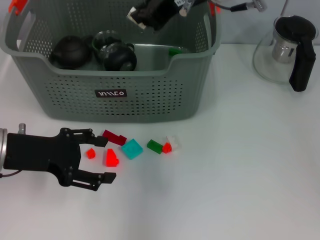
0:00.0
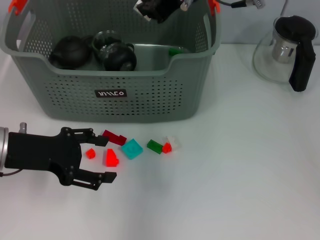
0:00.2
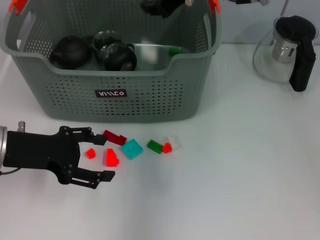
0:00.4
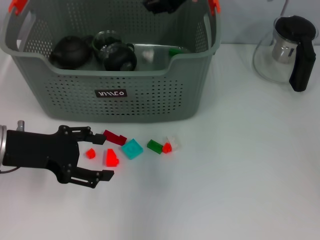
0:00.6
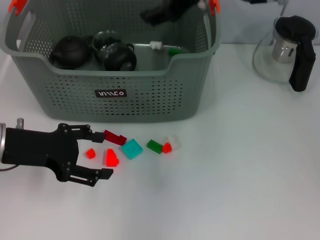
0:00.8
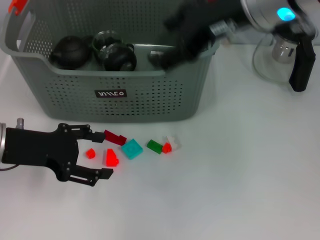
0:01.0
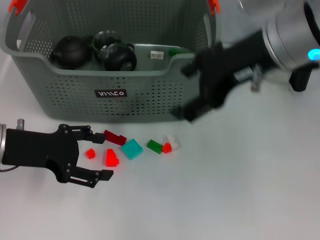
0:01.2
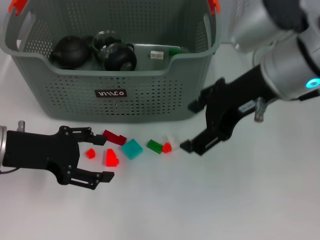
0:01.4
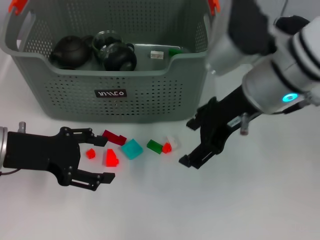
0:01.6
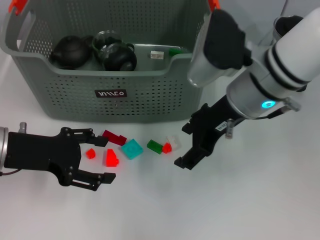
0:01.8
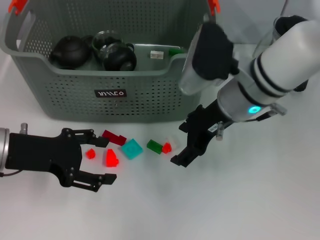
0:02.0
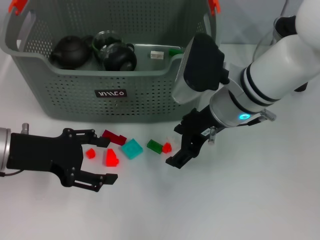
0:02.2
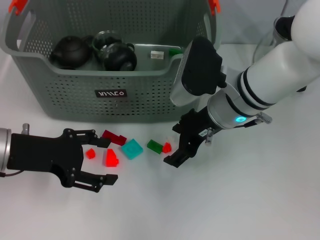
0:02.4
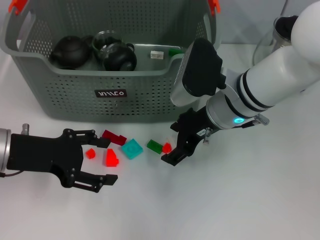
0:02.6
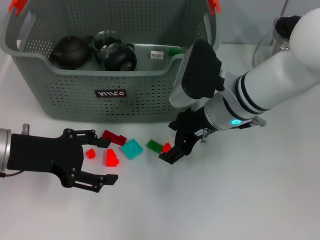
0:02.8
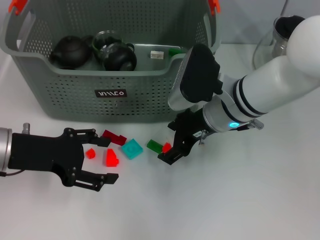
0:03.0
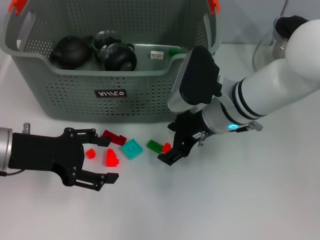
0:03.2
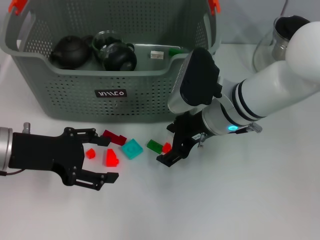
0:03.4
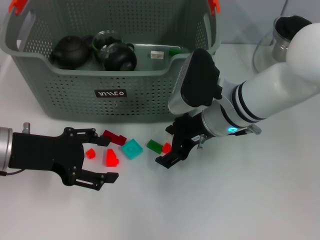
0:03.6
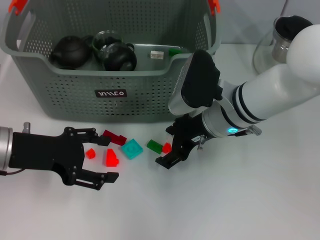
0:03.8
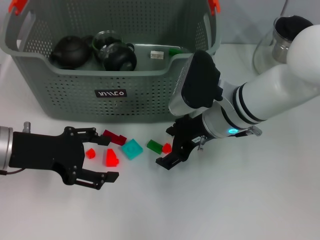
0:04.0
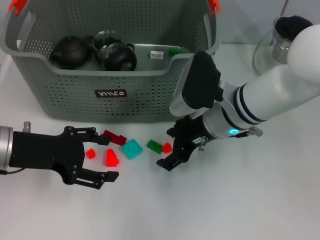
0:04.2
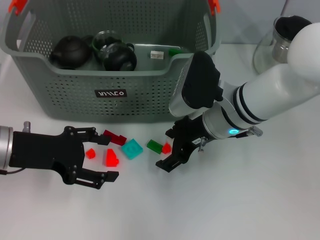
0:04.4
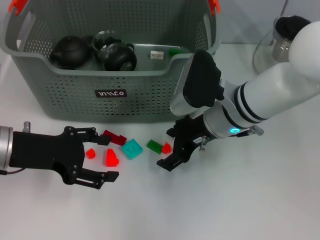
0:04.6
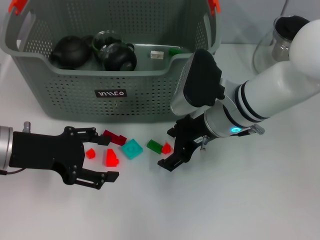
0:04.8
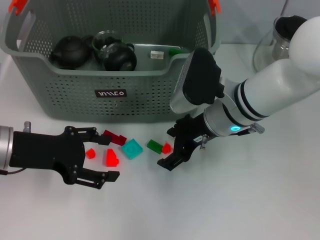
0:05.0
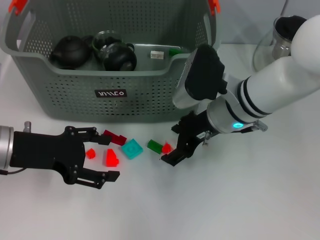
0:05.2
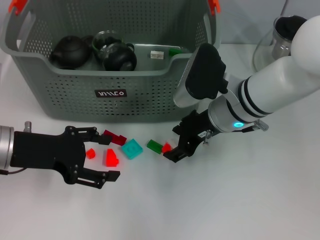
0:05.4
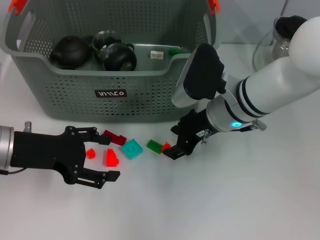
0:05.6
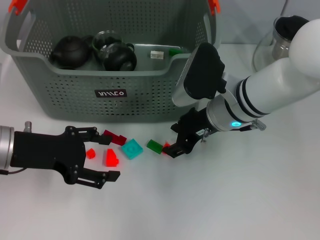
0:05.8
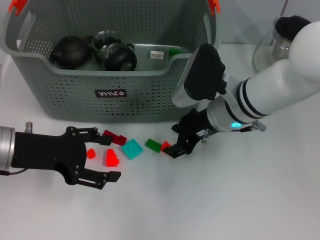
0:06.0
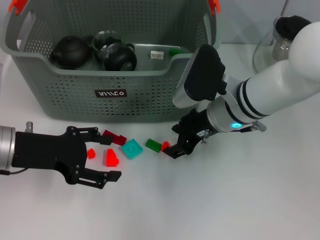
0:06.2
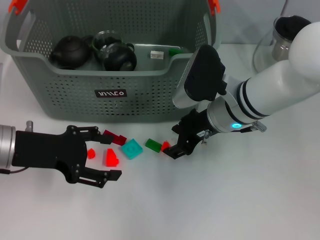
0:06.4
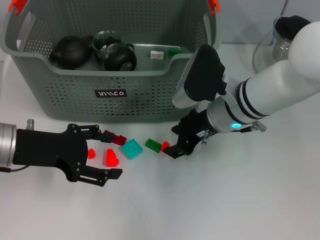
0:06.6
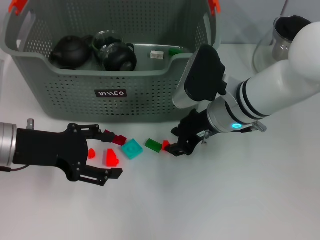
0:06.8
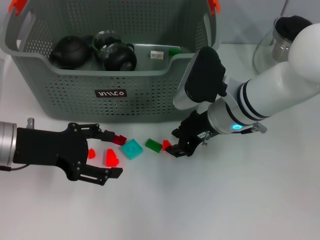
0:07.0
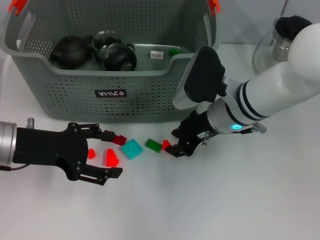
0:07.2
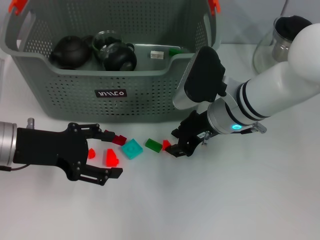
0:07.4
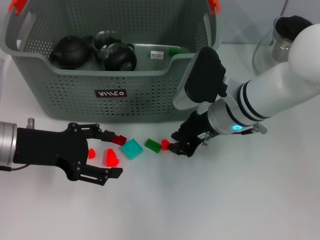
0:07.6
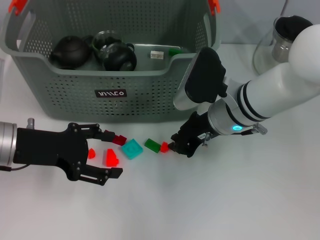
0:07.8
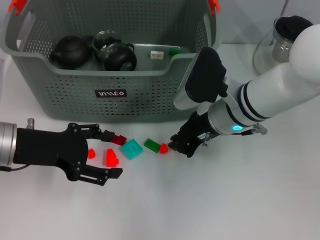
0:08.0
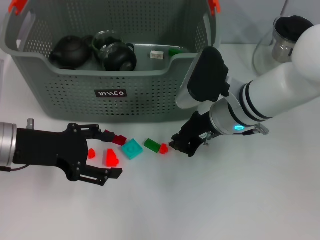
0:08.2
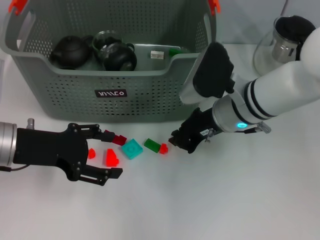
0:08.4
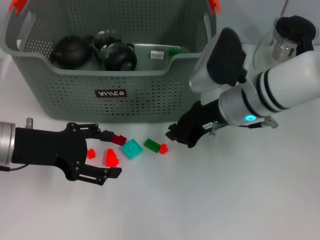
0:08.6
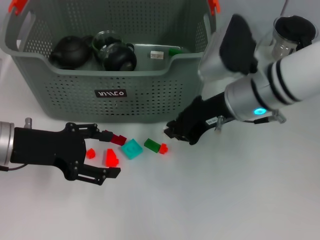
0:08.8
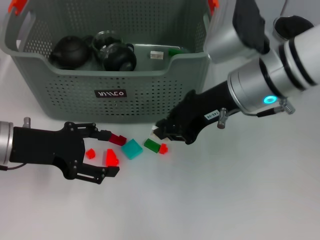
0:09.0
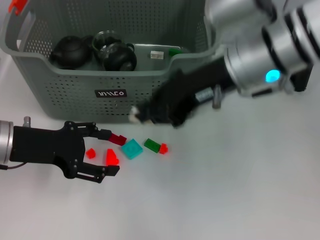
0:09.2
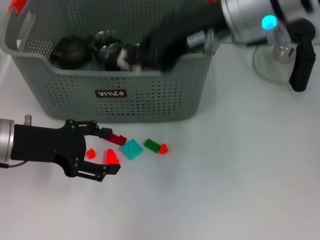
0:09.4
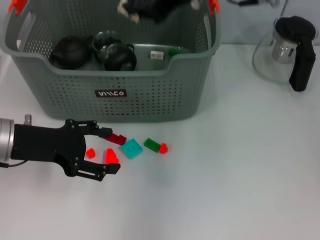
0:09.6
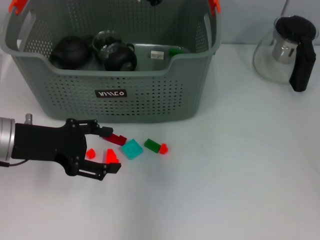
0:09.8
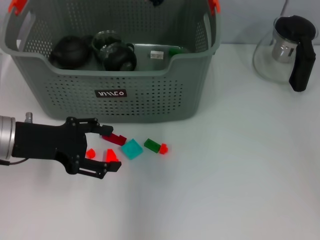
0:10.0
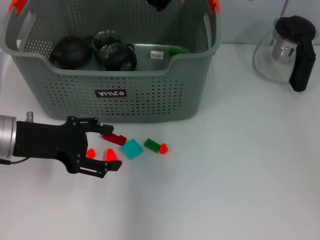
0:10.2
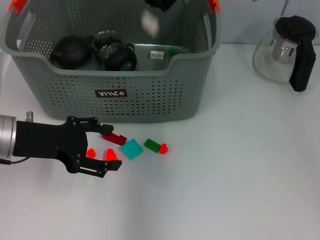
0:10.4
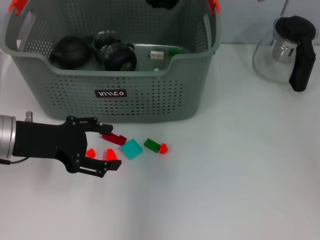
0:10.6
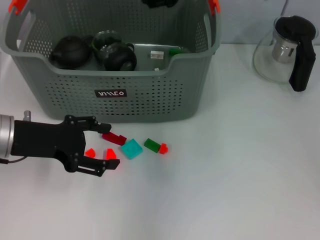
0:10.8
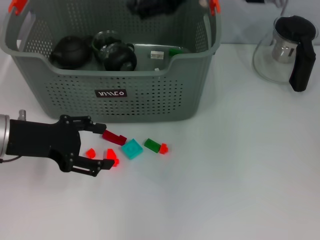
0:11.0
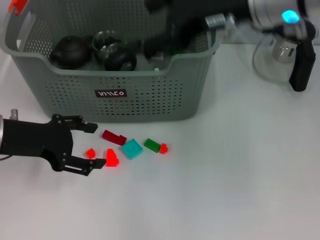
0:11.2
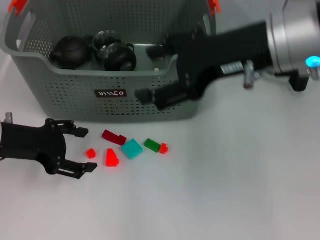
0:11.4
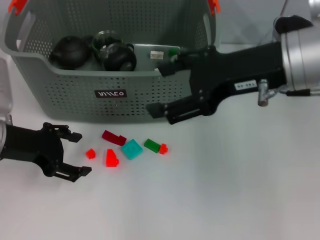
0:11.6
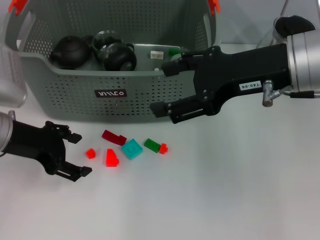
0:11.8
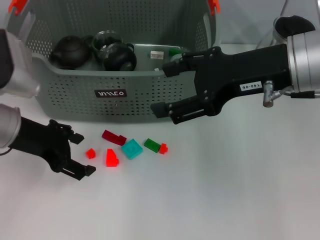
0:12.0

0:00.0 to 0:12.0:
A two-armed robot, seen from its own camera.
Task of the whole recording: pick up the teacup on the table and place it into the storage bin, pick up the block on the table and place it into the storage bin.
Step, 0:00.6 to 0:08.0: Grasp the white block with right gripper.
Step, 0:08.2 to 0:10.4: Place the white block in the storage box with right gripper.
0:00.0 to 0:01.6: The right gripper shifts roughly 10 cm backward and downward, and opens.
0:01.6 to 0:03.0: The right gripper travels downward by about 10 cm.
0:03.0 to 0:06.0: The two grippers keep their place.
0:06.0 to 0:07.6: Neither gripper changes place.
0:07.6 to 0:09.0: The right gripper travels upward by about 10 cm.
0:09.0 to 0:10.4: The right gripper goes approximately 15 cm forward and upward.
0:10.4 to 0:12.0: The right gripper shifts approximately 15 cm backward and to the right, and opens.

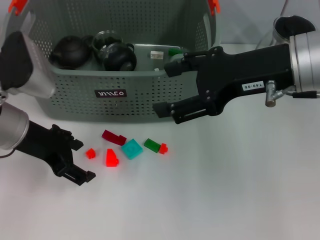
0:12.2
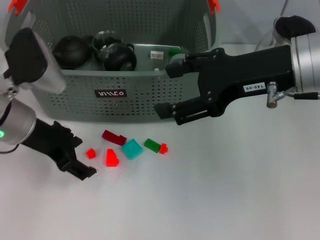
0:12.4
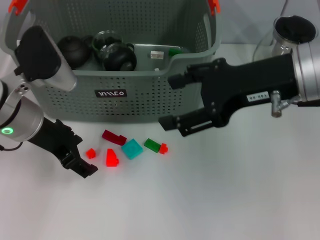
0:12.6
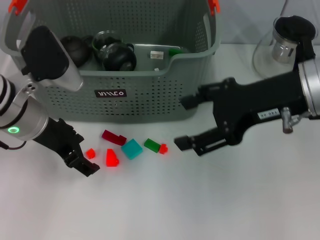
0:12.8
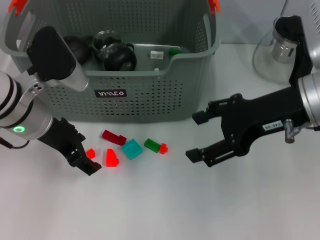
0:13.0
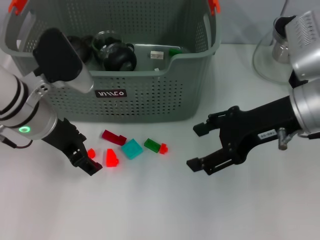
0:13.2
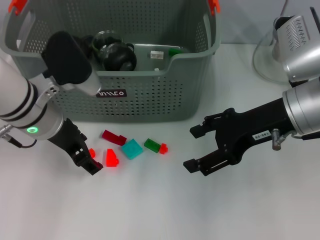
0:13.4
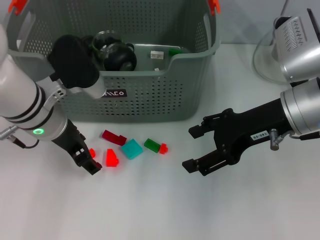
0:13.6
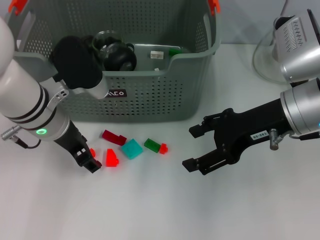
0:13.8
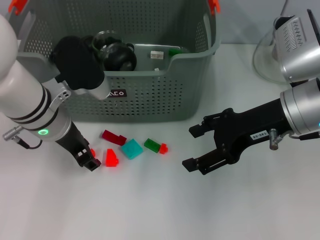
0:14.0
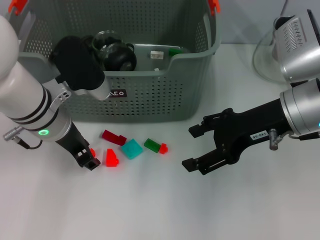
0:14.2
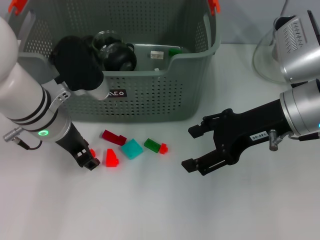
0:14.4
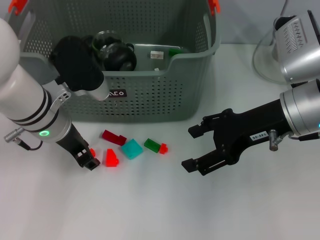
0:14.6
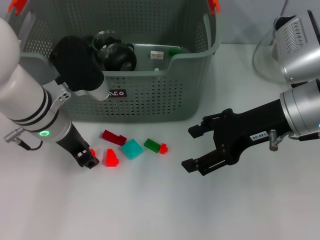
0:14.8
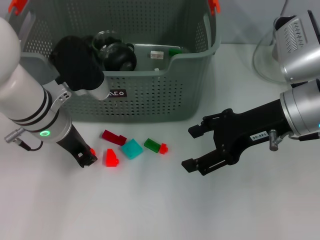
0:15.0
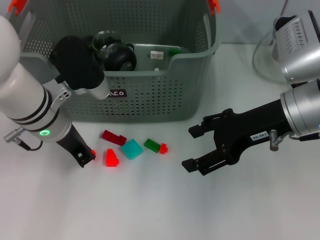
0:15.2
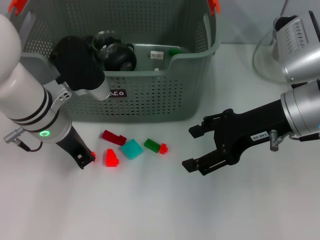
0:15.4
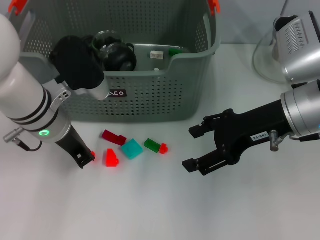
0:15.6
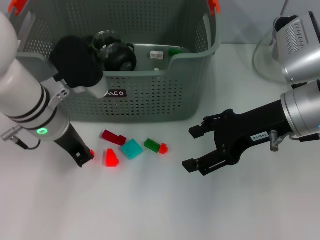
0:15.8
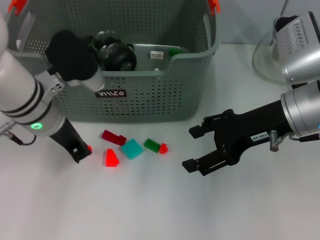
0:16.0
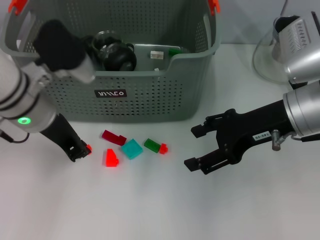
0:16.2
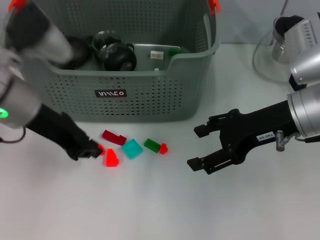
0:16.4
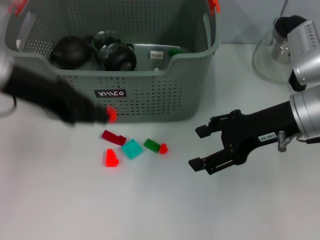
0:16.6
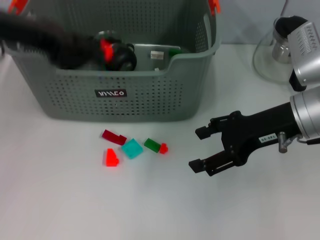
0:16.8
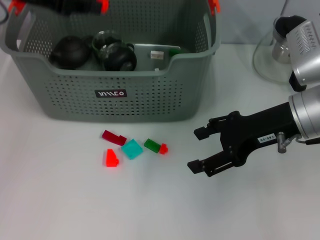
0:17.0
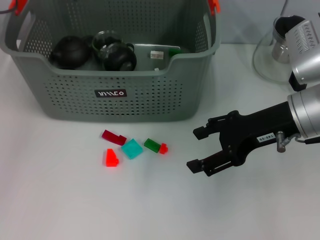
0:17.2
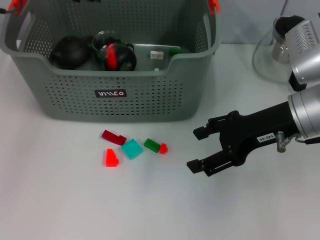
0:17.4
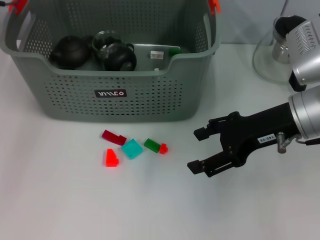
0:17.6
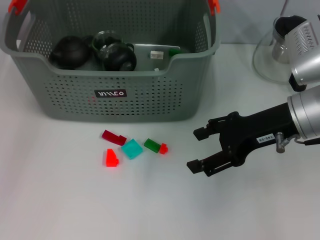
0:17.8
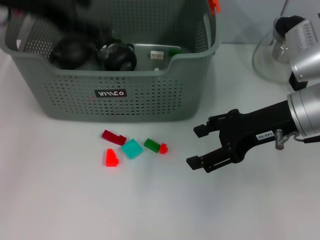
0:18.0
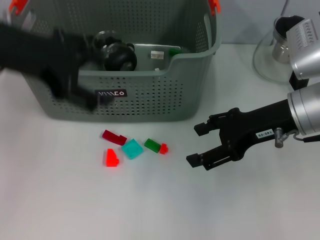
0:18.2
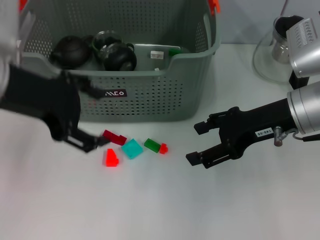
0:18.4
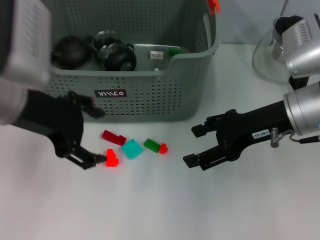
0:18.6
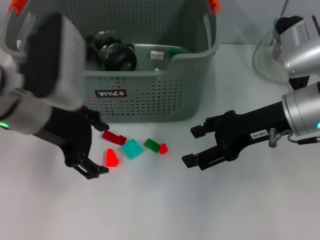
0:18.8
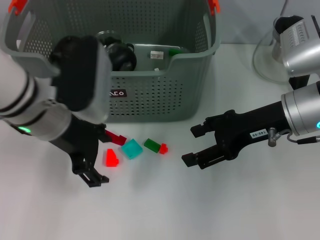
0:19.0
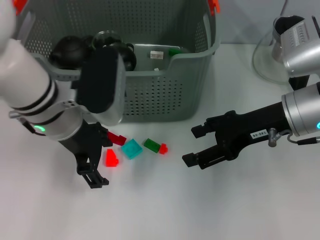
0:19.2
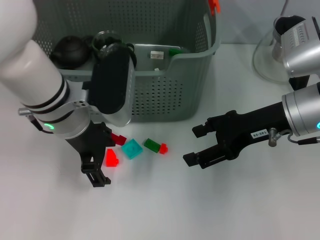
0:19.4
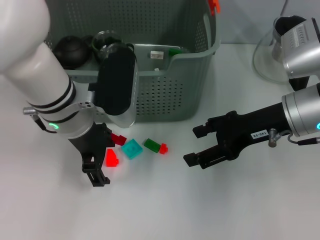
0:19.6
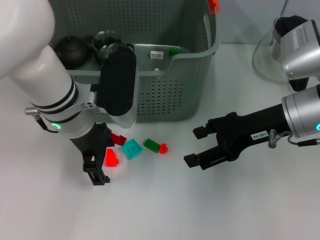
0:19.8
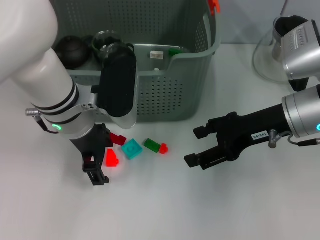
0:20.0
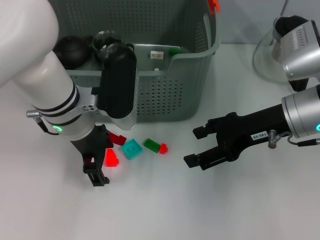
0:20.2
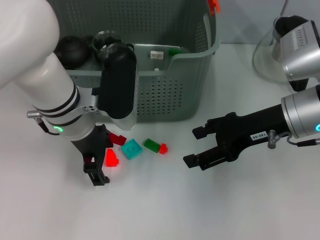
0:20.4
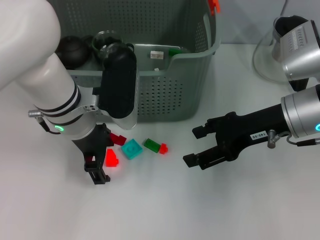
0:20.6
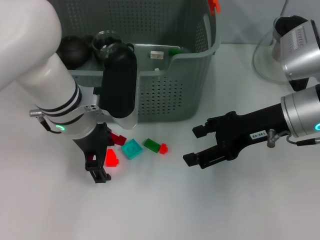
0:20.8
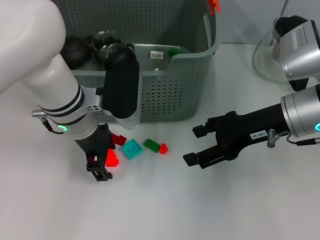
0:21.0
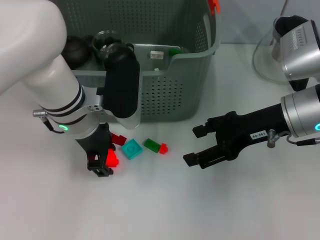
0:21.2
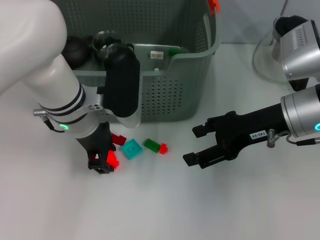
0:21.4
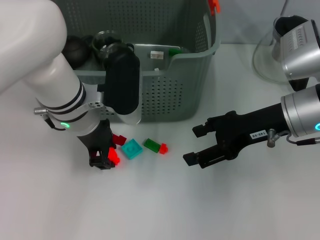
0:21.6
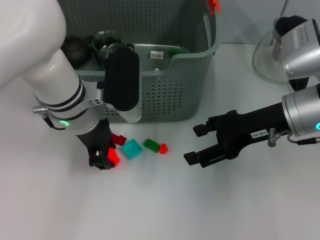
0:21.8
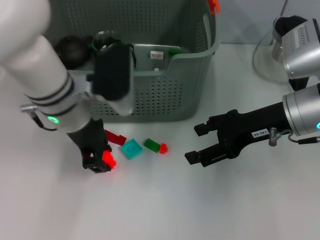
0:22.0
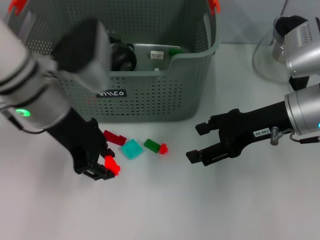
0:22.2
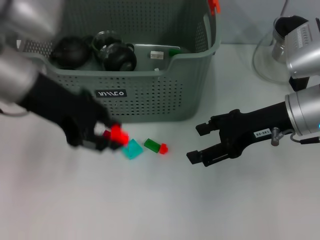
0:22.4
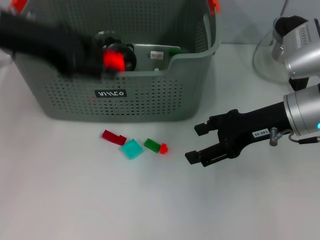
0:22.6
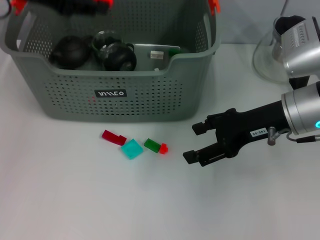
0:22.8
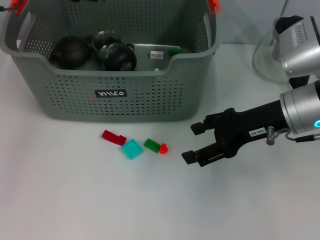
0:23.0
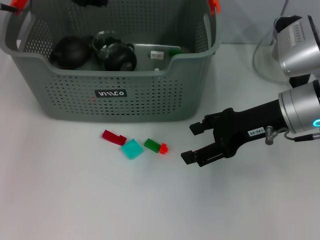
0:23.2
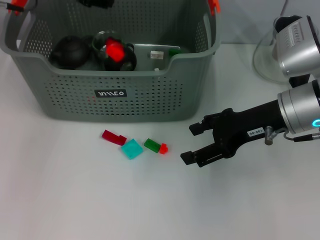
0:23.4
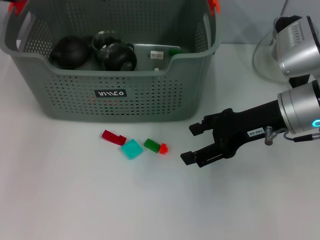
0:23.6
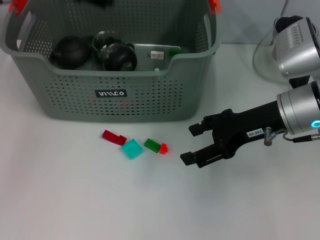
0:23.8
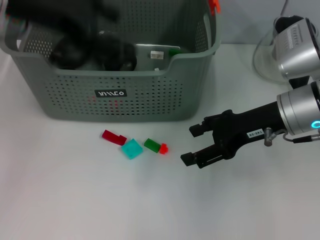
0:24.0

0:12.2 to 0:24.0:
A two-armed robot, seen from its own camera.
Task of the whole recording: pick up the teacup on the table and place it into the storage bin, pick up the block on the table and place it into the storage bin.
Step, 0:12.2 to 0:15.2: Grasp the orange block with left gripper.
Step, 0:15.4 to 0:17.4: Place the orange block in the storage box with left gripper.
Step, 0:17.6 to 0:21.4: Grasp the orange block with left gripper.
Step, 0:21.8 to 0:23.4: Place the orange block in the storage box with left gripper.
0:12.2 to 0:13.6: The left gripper shifts roughly 5 cm to the right; the right gripper moves downward, some 5 cm.
0:13.6 to 0:15.2: The left gripper closes its fingers.
0:15.2 to 0:16.6: The left gripper shifts roughly 15 cm upward and to the left.
0:16.6 to 0:18.2: The left gripper reaches some 10 cm forward, then returns, and opens its fingers.
0:18.2 to 0:19.6: The left gripper moves downward and to the right, about 15 cm.
0:19.6 to 0:21.0: There are only small adjustments of the grippers.
0:21.0 to 0:22.6: The left gripper travels upward and to the left by some 20 cm, and closes its fingers.
0:22.6 to 0:24.0: The left gripper travels forward and back again, roughly 10 cm each way, and opens its fingers.
